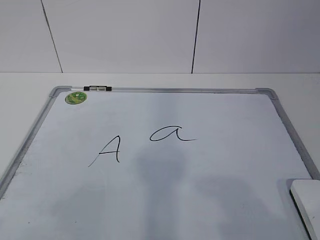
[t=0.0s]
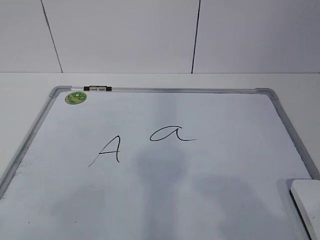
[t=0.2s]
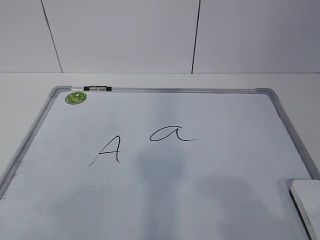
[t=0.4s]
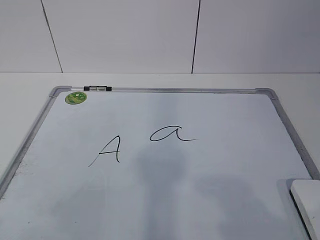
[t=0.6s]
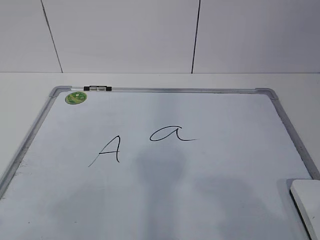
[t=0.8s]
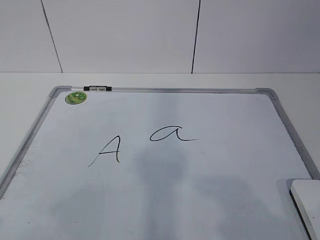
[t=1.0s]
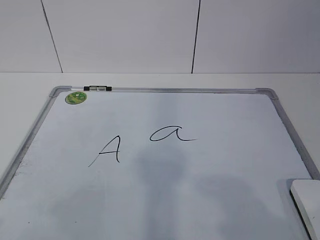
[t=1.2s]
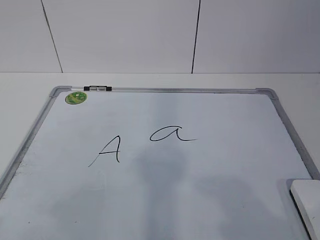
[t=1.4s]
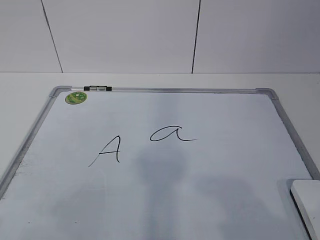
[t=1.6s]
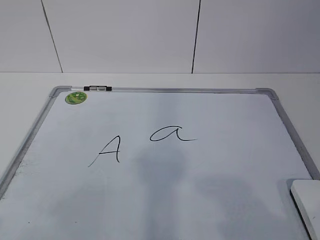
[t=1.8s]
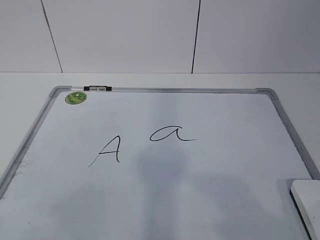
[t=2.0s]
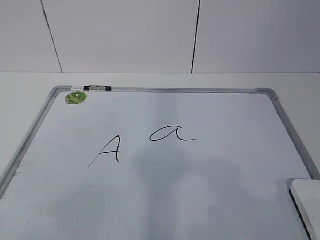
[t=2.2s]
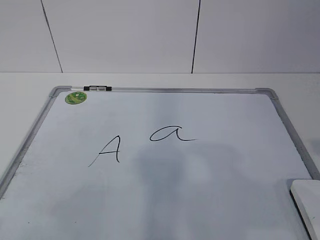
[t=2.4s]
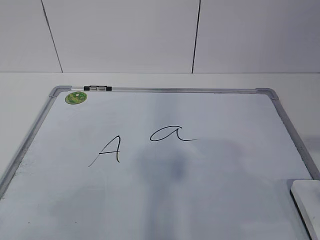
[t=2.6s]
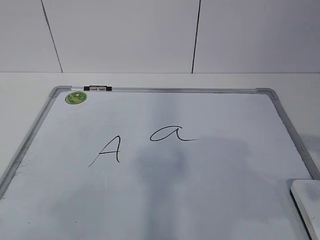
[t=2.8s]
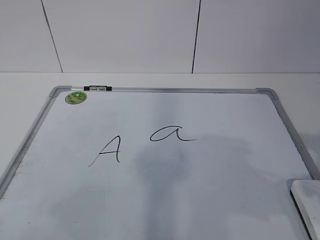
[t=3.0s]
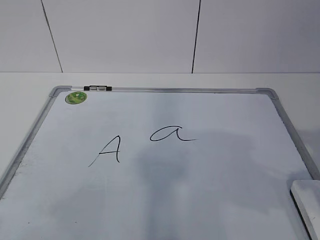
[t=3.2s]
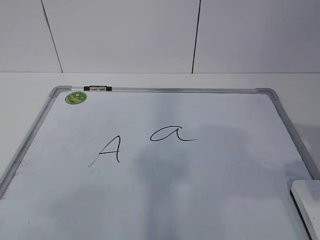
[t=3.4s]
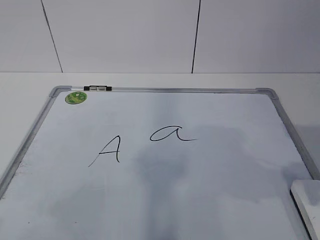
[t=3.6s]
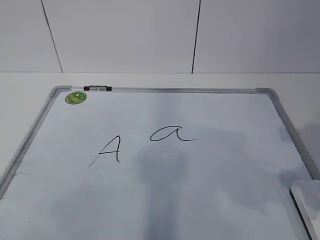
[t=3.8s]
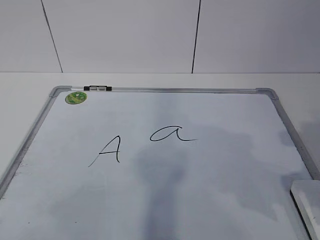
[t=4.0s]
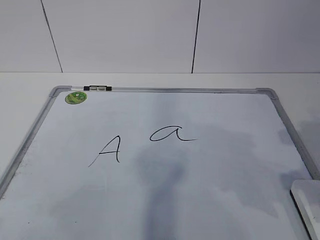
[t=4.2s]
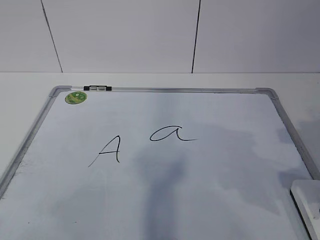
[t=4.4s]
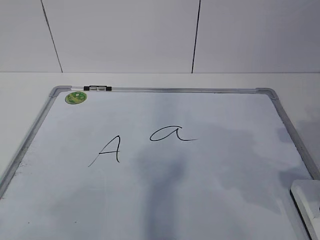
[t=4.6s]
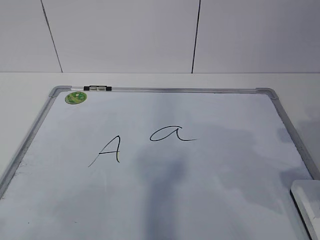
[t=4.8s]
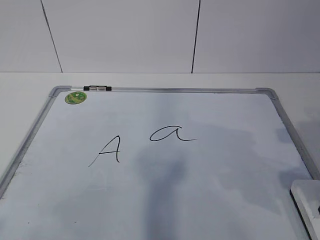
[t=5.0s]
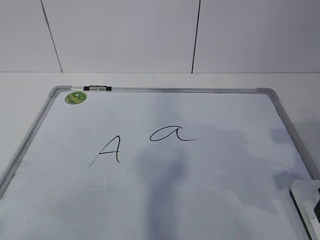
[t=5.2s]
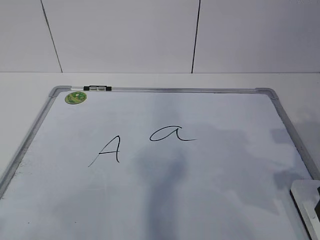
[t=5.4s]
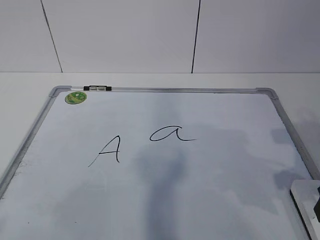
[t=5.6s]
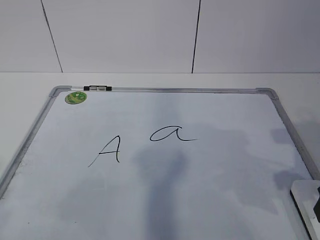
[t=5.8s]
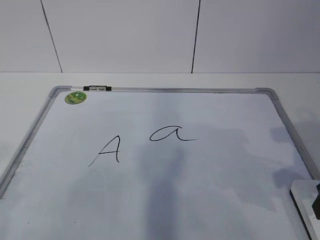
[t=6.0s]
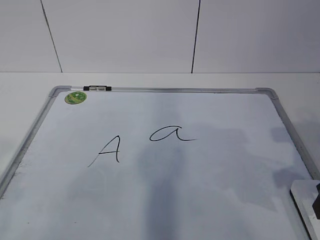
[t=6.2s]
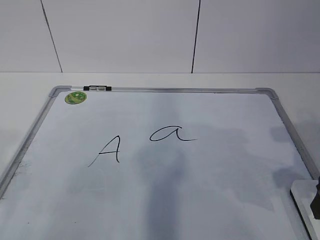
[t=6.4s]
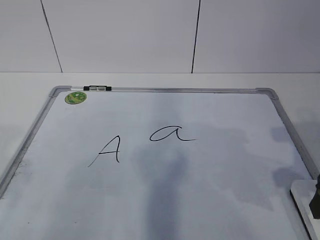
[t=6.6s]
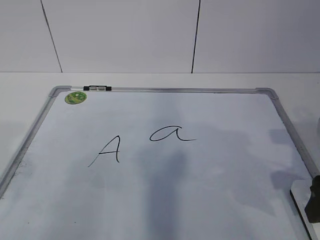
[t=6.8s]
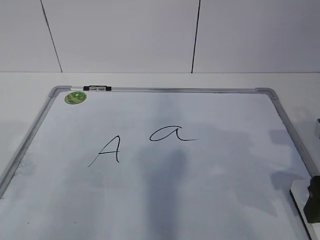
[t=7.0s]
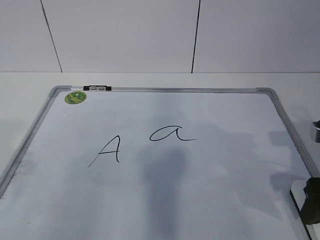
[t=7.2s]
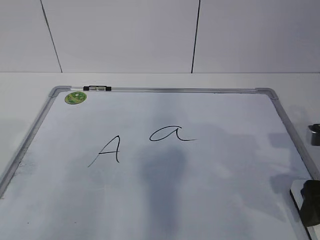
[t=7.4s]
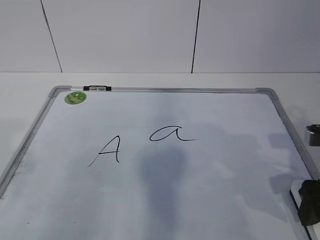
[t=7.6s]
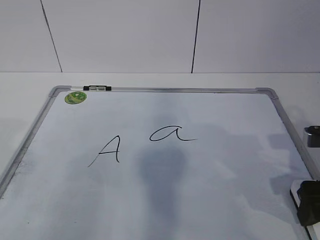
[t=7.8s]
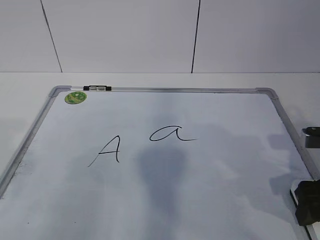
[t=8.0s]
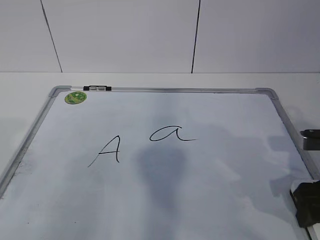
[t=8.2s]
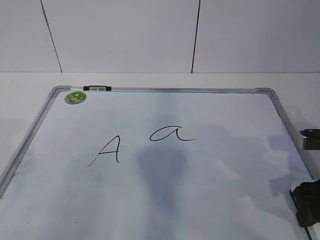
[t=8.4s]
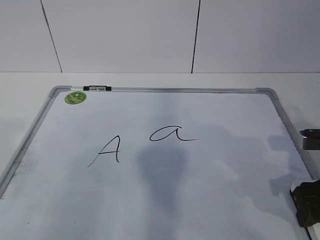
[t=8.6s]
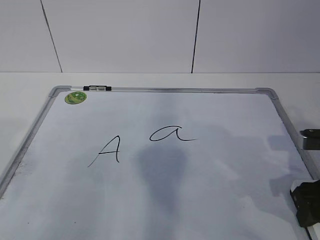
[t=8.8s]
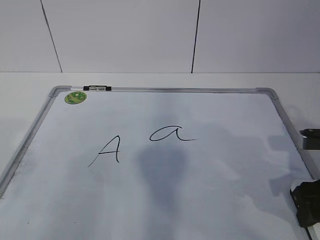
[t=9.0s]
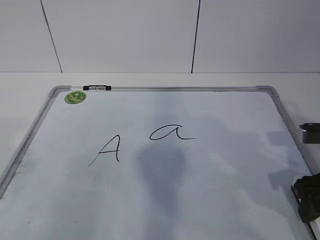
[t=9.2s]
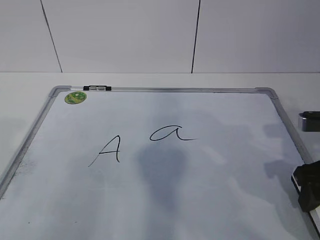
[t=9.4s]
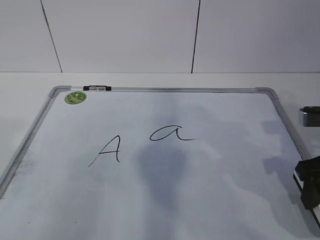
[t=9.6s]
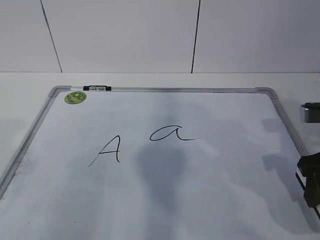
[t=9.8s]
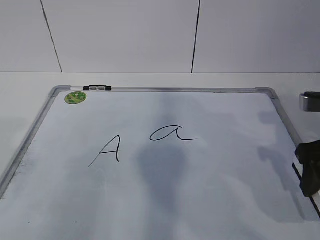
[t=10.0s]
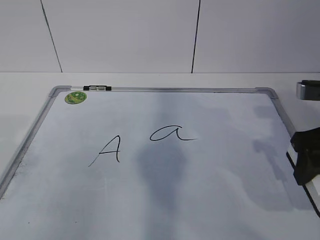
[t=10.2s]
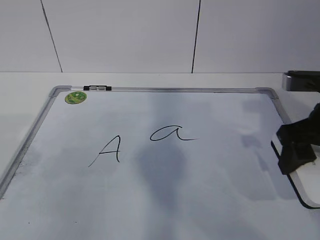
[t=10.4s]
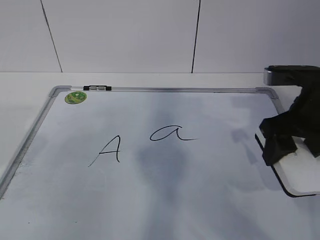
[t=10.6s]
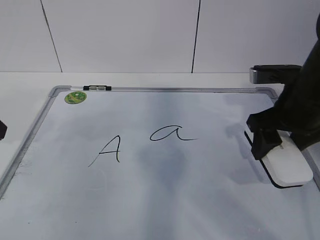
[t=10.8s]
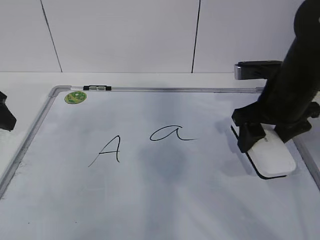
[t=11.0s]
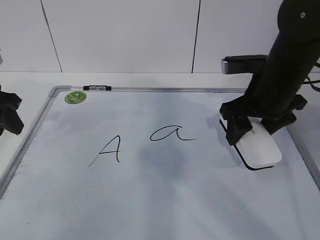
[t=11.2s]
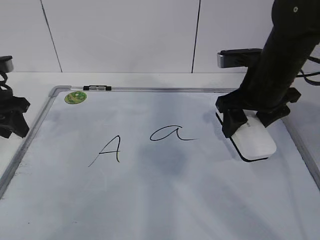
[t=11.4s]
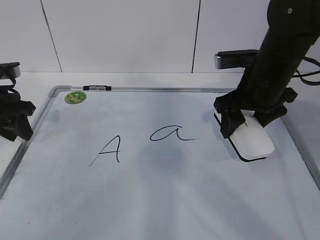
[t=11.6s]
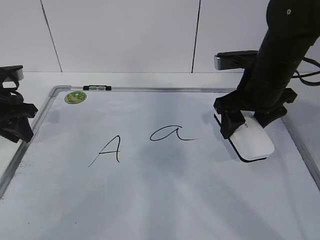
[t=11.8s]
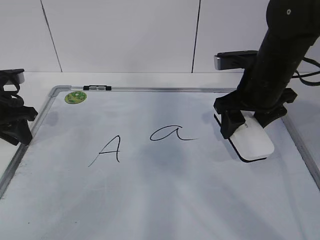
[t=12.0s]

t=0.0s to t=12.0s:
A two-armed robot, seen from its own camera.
Task of the whole recording: pick up the eraser on the blackboard and erase the letter "a".
Step, t=7.6s to t=10.2s: Hold the drawing board steady with your left hand.
t=6.0s to t=7.6s: The right gripper opens.
t=9.0s to t=10.4s: The right gripper travels upward by approximately 10 cm.
t=10.4s to t=12.0s: The right gripper heads forward and to the left, covering approximately 10 cm. Meanwhile the left gripper travels forward and downward by about 25 cm, and closes its fingers.

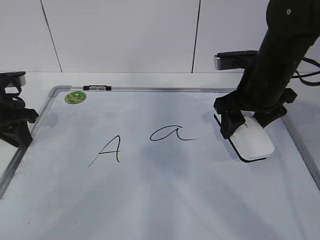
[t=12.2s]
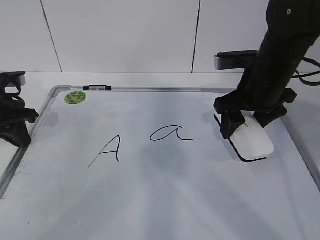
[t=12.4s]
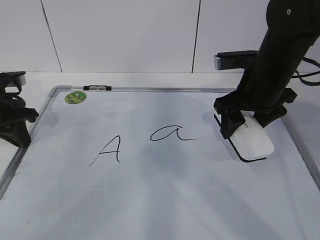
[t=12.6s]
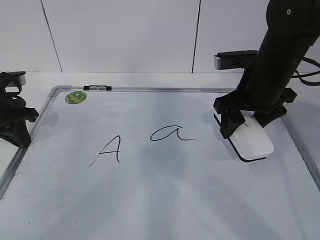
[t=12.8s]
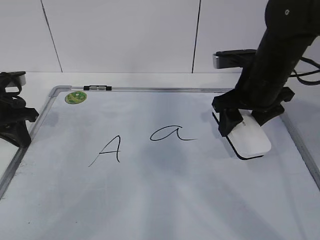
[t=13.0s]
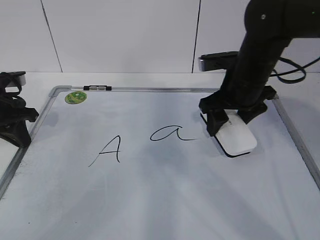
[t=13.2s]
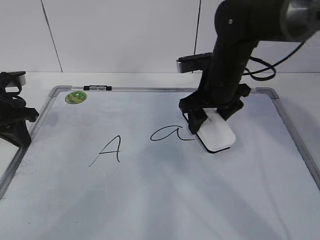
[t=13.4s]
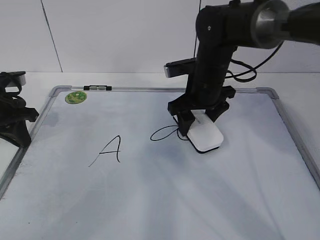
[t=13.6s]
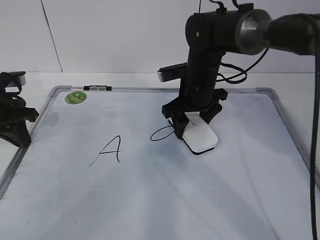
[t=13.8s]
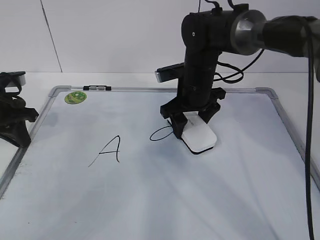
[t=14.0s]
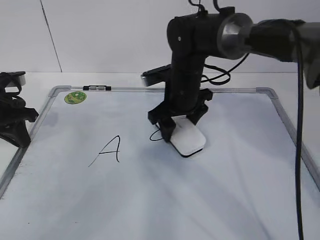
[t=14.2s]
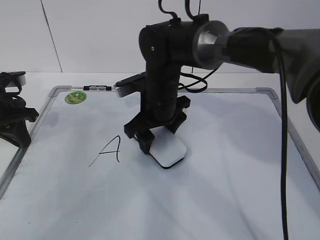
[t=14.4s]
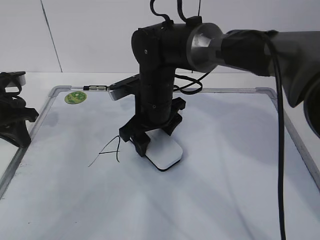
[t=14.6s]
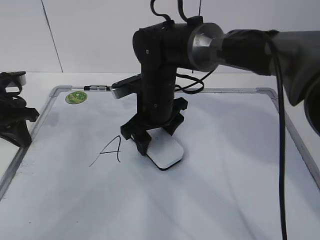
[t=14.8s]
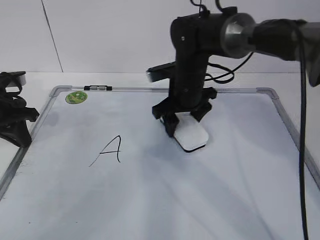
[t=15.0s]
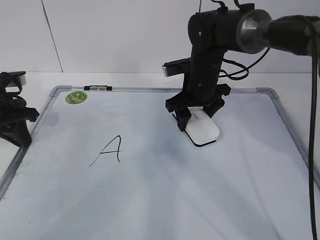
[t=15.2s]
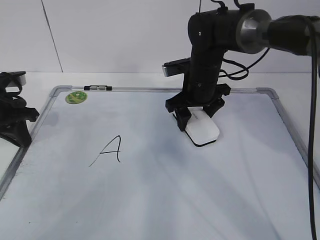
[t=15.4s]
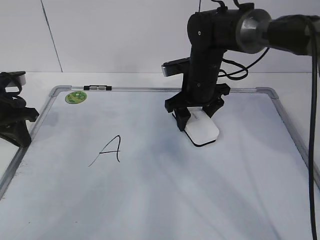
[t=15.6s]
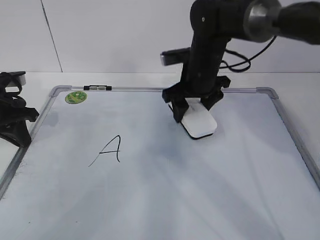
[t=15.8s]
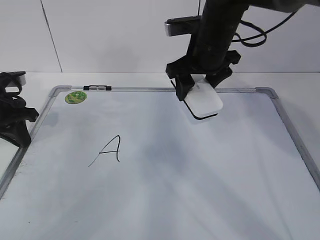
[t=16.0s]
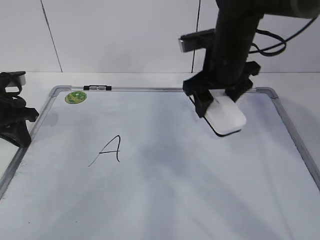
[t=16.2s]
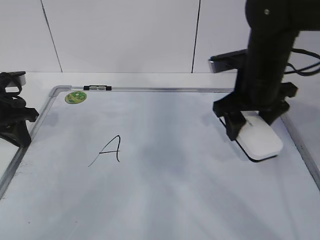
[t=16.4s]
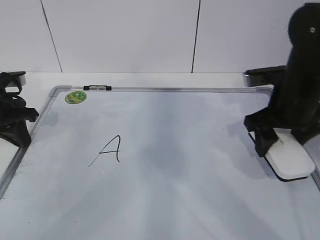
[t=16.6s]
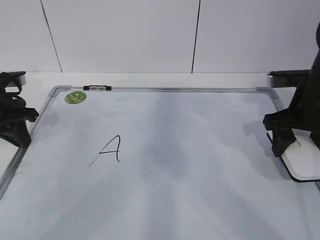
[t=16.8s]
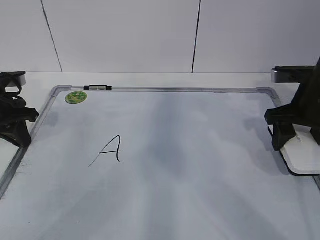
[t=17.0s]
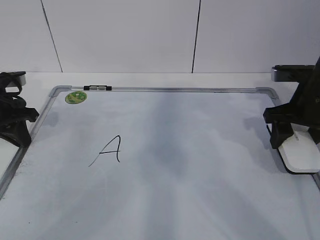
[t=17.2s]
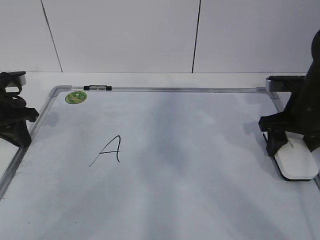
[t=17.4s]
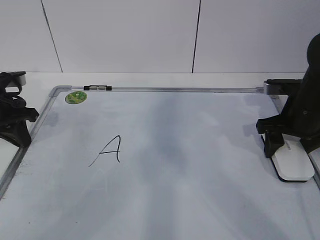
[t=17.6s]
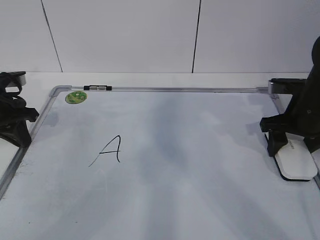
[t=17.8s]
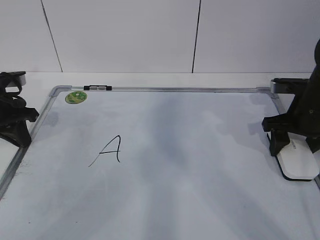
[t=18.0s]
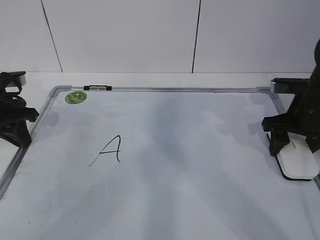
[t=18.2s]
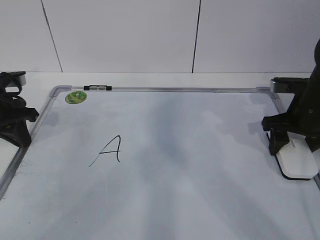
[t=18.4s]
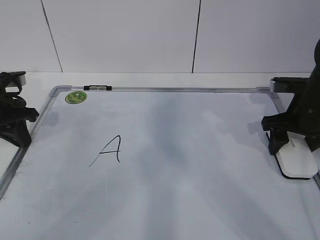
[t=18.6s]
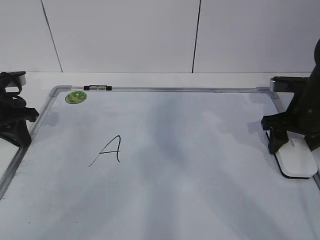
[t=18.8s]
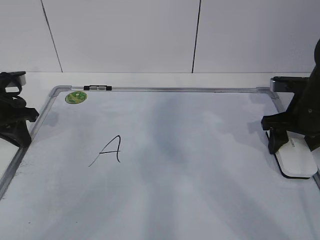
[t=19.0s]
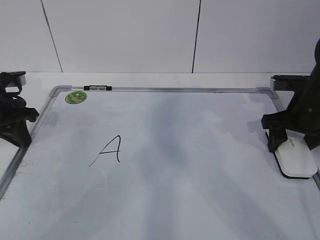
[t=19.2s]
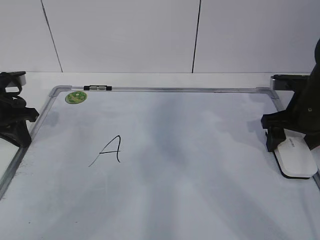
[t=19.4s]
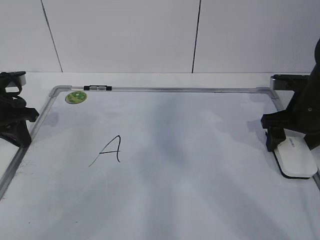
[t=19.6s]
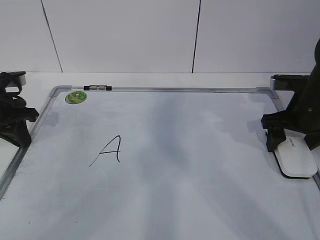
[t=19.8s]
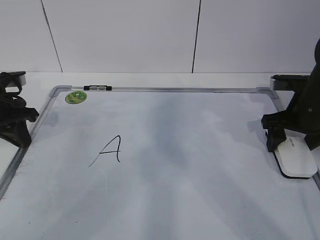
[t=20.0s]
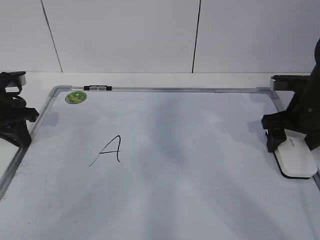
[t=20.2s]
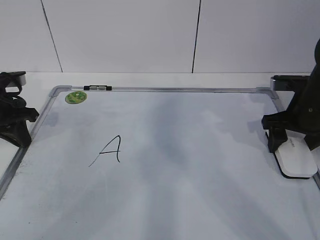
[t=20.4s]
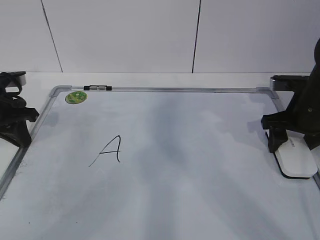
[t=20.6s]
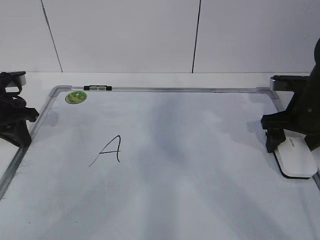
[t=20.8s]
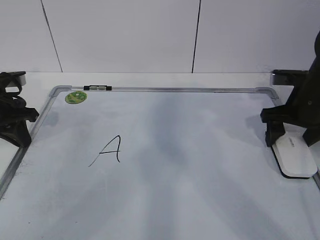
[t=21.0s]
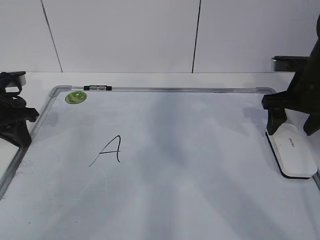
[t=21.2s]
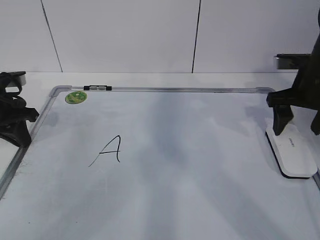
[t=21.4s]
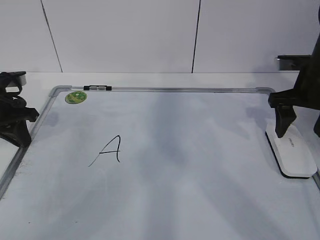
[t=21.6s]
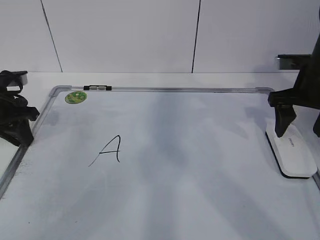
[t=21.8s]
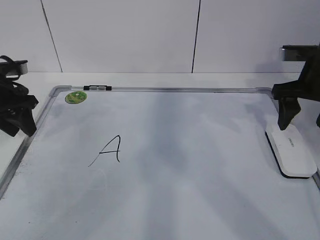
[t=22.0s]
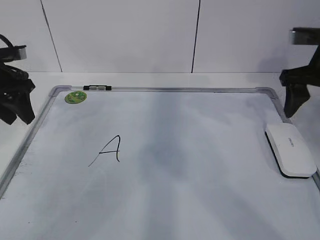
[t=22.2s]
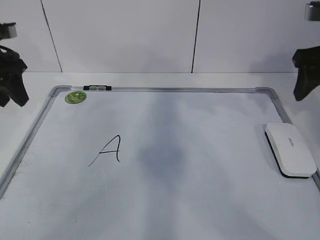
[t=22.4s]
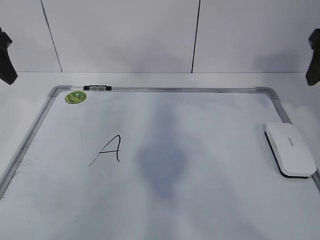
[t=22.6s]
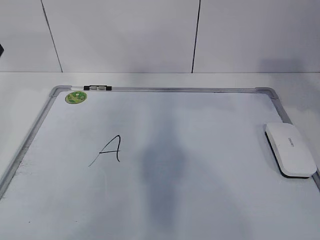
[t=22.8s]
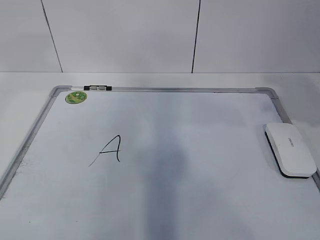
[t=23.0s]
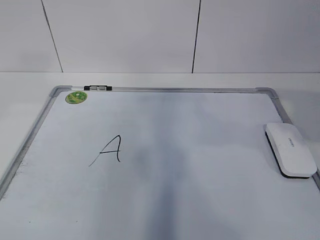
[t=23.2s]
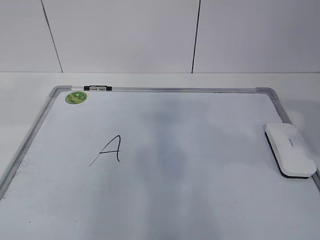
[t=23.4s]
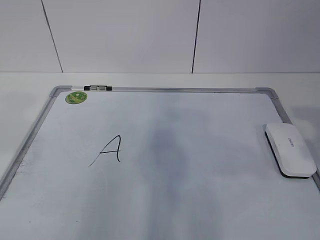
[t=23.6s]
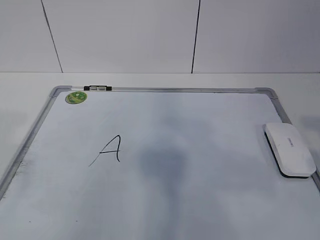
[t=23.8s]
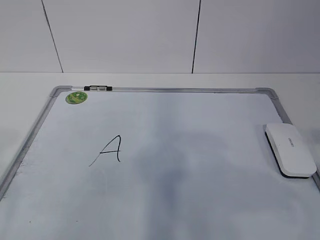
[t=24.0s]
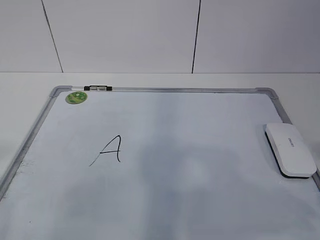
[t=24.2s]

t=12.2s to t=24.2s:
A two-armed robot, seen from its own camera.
Task of the whole recording: pick up the eraser on the blackboard and erase the letter "a".
Step, t=13.0s to t=15.8s: Put down the eraser with your right hand.
t=12.2s to t=13.8s: The right gripper goes some 15 cm to the left, forward and downward.
t=13.8s to t=15.2s: The right gripper goes to the left and returns, about 10 cm each way.
t=15.2s to t=16.6s: The right gripper is displaced to the right and backward by roughly 15 cm.
t=16.6s to t=18.2s: The right gripper is displaced to the right by approximately 5 cm.
t=18.2s to t=19.8s: The right gripper opens its fingers.
t=19.8s to t=21.2s: The right gripper closes and opens again.
t=21.2s to t=22.6s: The left gripper shifts approximately 15 cm upward, and opens. Meanwhile the right gripper heads upward and backward, covering some 15 cm, and closes its fingers.
t=22.6s to t=24.2s: The two grippers go approximately 30 cm backward. The right gripper closes.
